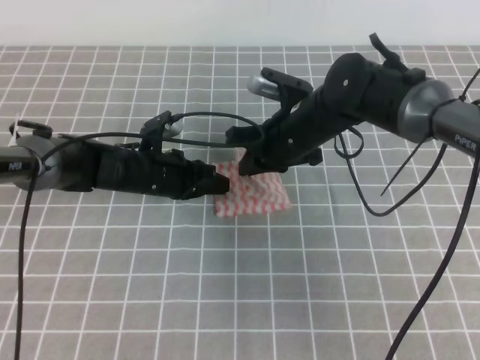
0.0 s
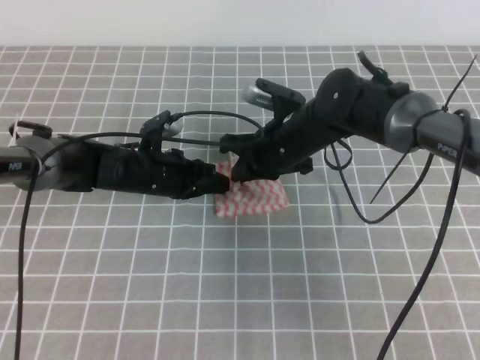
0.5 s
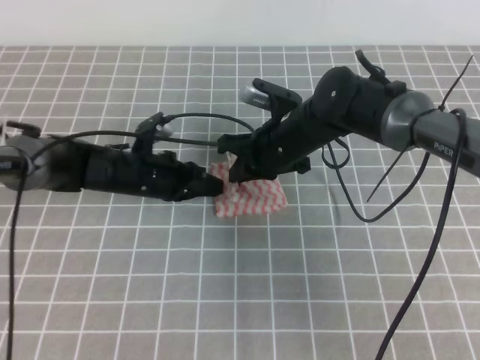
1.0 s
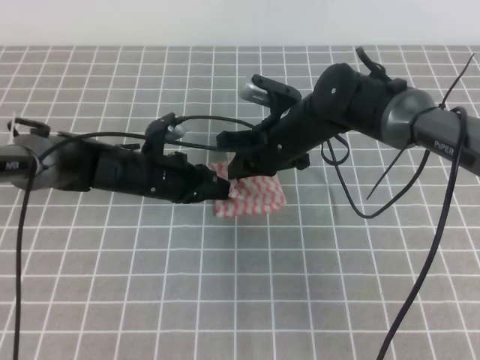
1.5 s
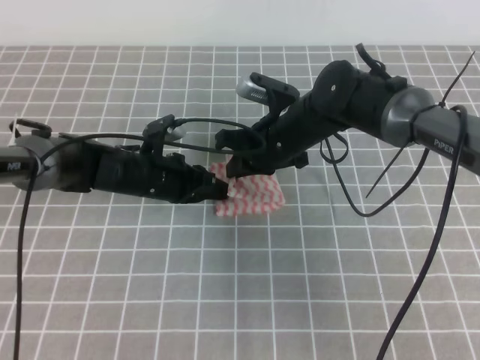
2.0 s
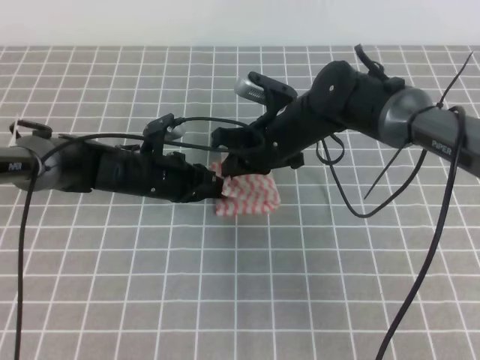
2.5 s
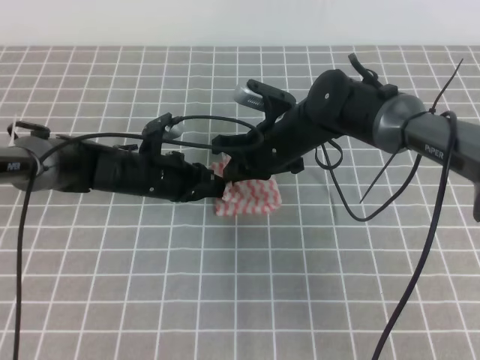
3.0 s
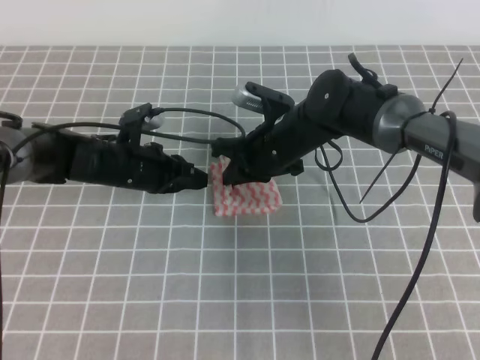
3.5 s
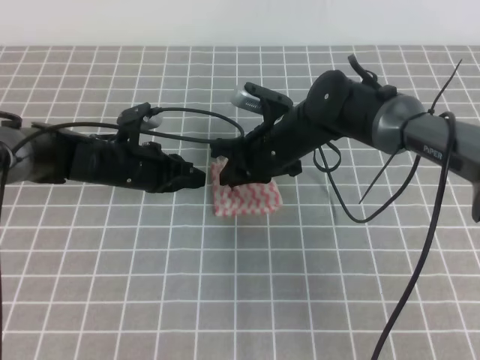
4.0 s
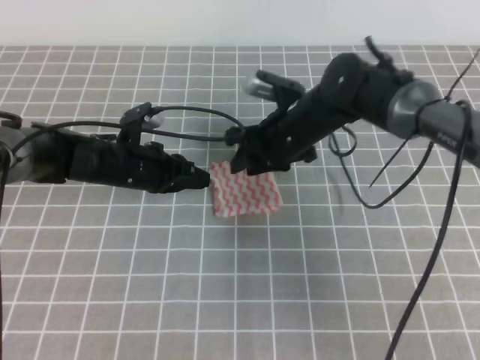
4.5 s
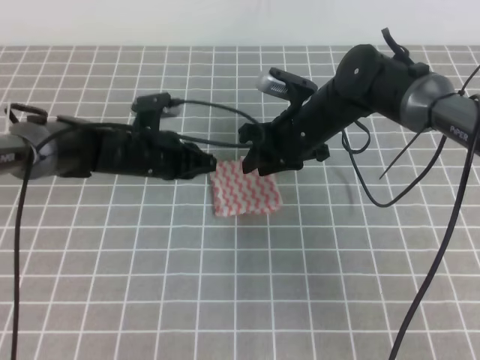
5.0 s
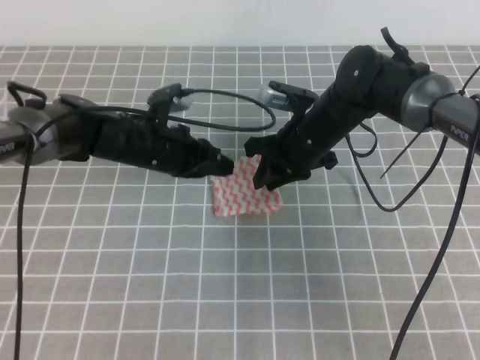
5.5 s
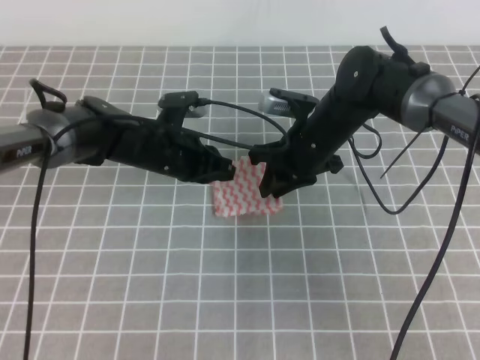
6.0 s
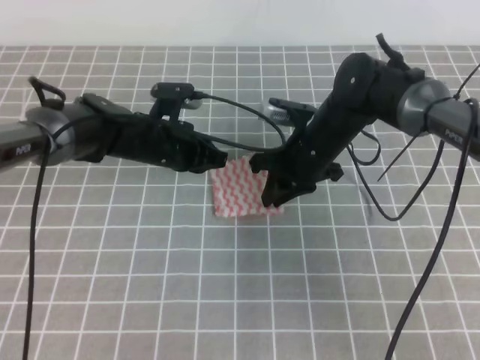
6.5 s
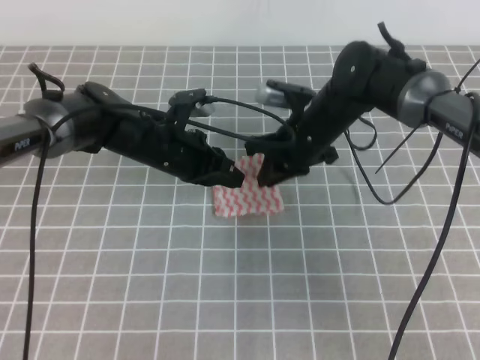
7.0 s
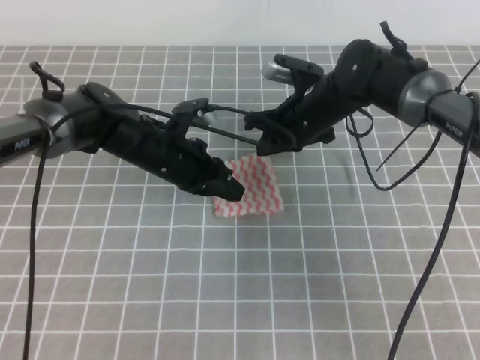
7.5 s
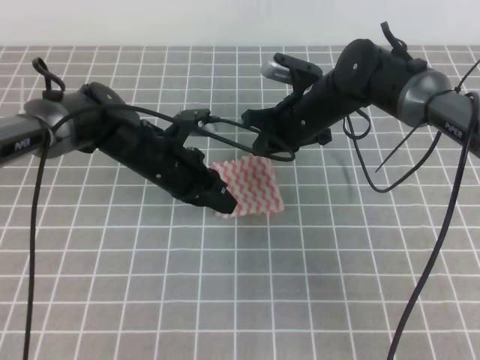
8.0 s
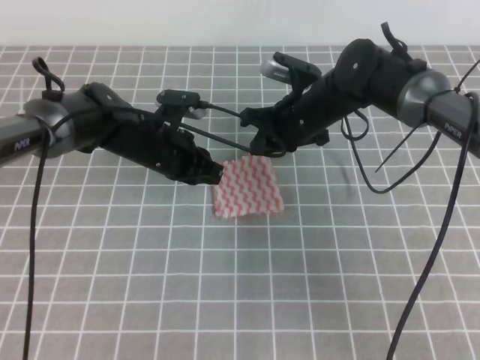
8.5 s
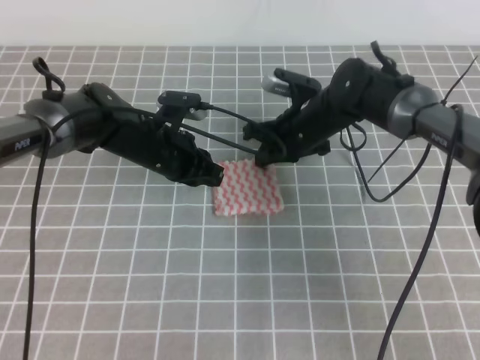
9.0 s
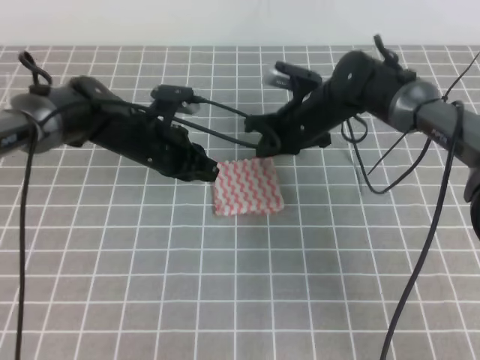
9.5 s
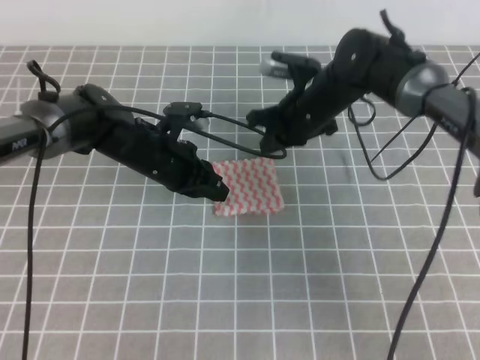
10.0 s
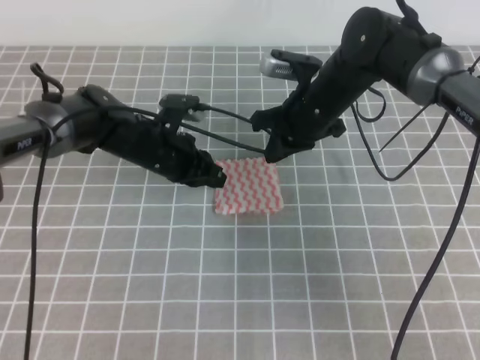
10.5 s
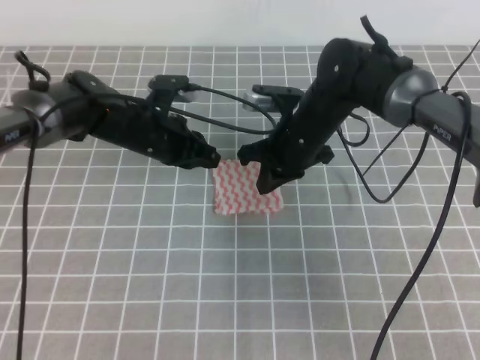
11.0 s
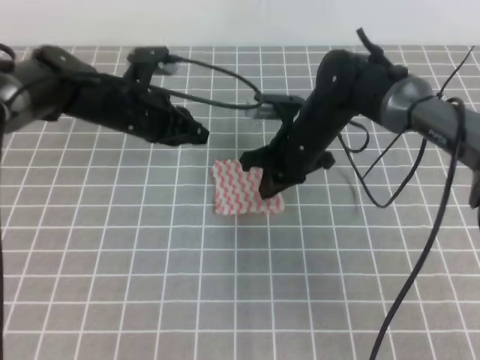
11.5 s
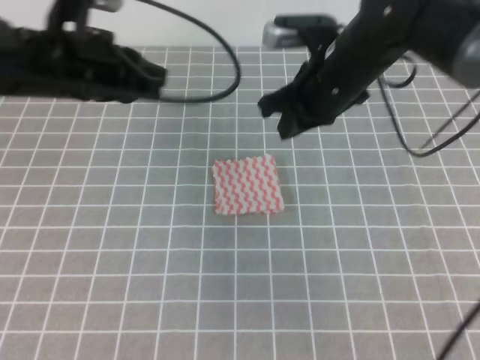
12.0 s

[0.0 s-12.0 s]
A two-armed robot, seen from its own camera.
0.0 to 4.0 s: The grippers make only small movements.
4.0 to 6.0 s: The left gripper goes approximately 5 cm to the right.
6.0 to 8.0 s: The right gripper closes its fingers.
8.0 to 10.0 s: The grippers make only small movements.
10.0 to 12.0 s: The left gripper heads upward and backward, covering approximately 20 cm. Meanwhile the right gripper moves upward and backward, some 10 cm.

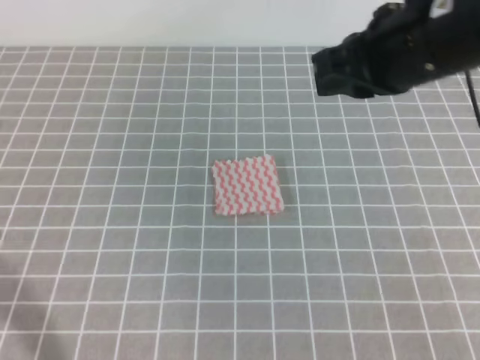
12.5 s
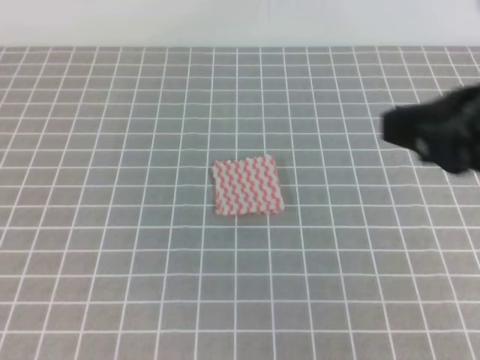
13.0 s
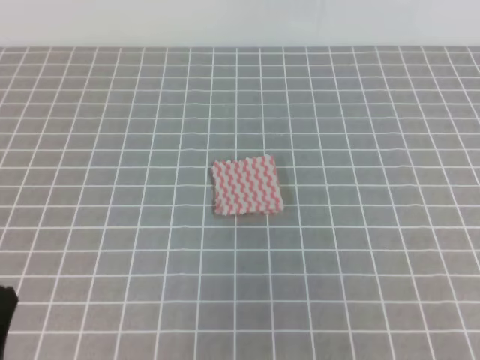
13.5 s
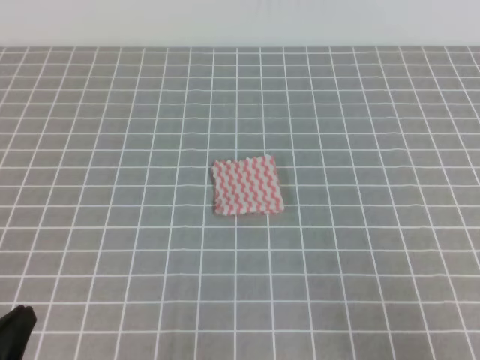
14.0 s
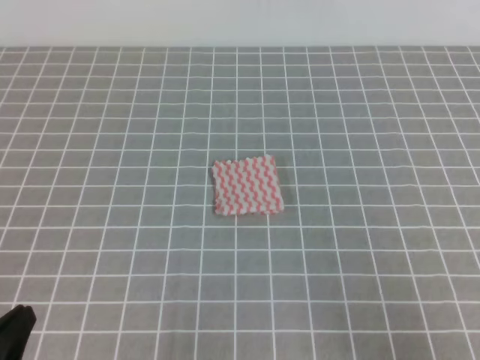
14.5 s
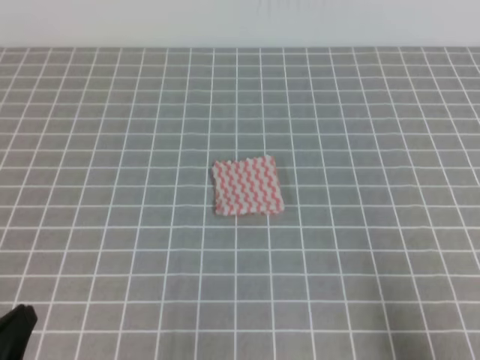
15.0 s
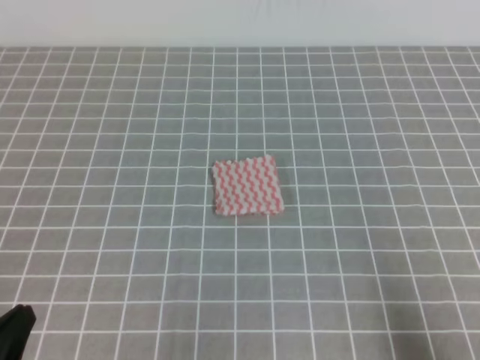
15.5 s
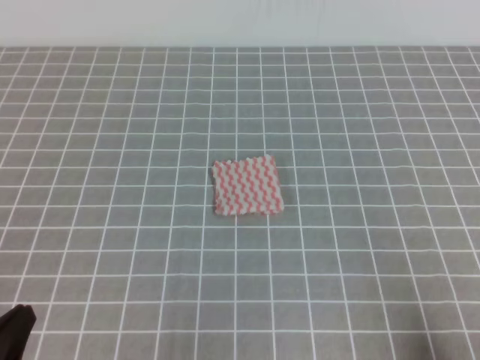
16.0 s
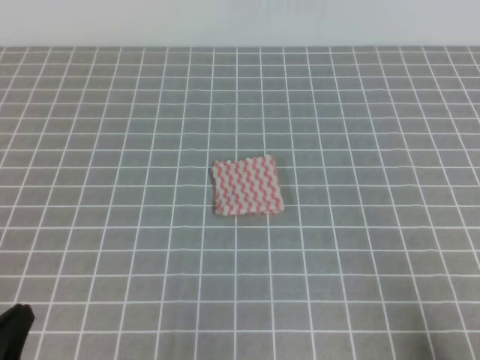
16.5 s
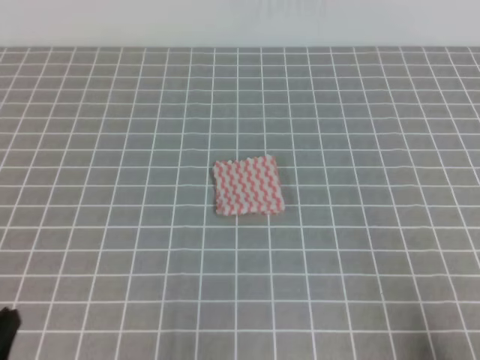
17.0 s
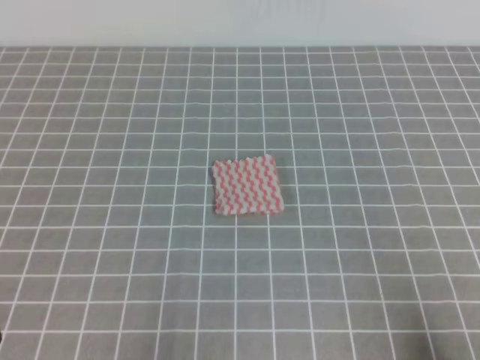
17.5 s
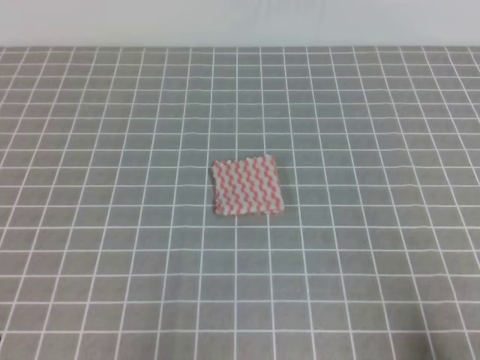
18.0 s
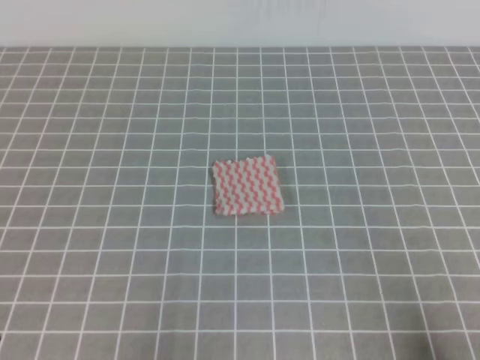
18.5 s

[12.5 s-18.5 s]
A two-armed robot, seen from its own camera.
Step, 12.5 to 18.5 s: Fold the towel.
12.5 to 14.5 s: The left gripper heads downward, covering about 20 cm. The right gripper is displaced backward, downward and to the right by some 30 cm.
14.5 to 16.5 s: The right gripper ends up some 5 cm from where it was.
